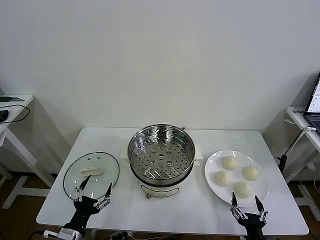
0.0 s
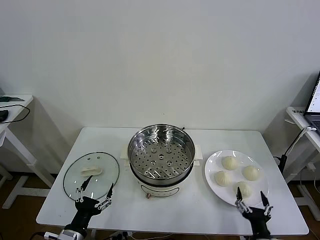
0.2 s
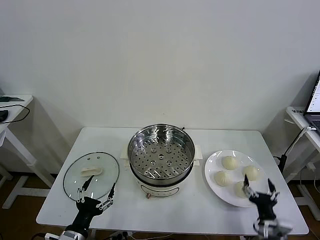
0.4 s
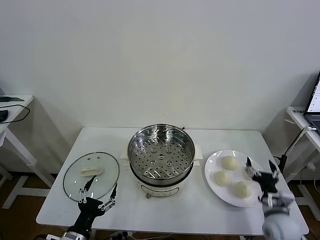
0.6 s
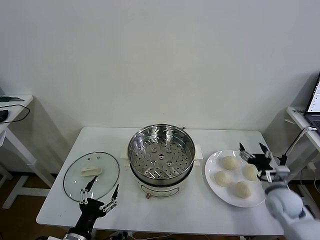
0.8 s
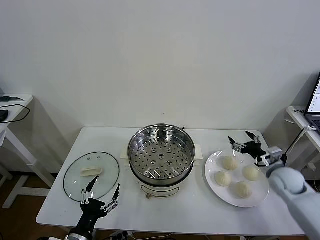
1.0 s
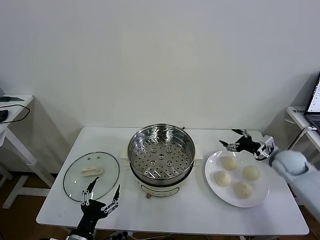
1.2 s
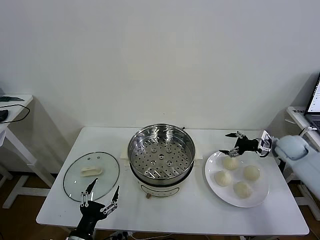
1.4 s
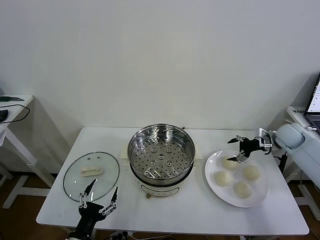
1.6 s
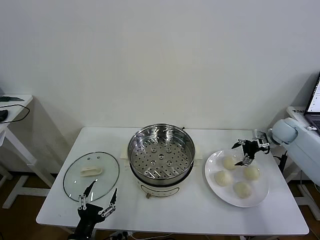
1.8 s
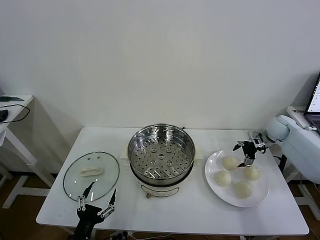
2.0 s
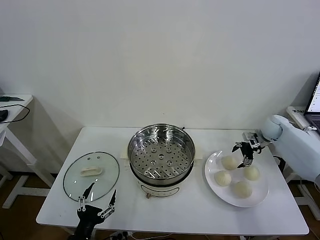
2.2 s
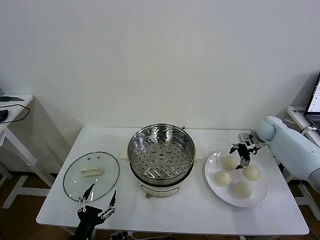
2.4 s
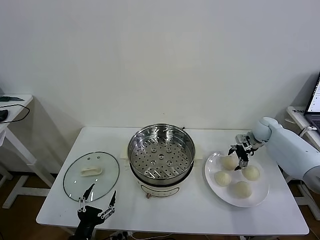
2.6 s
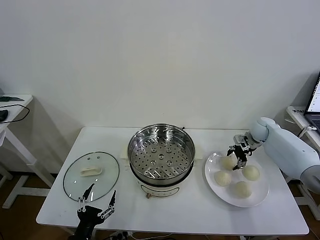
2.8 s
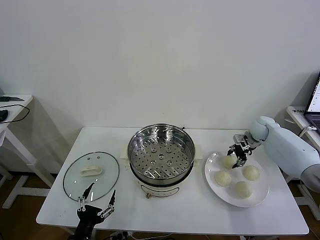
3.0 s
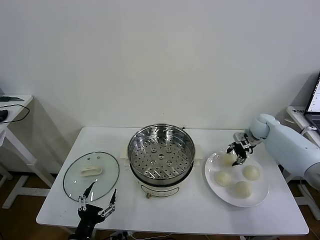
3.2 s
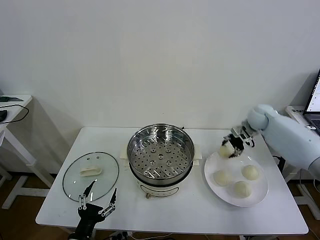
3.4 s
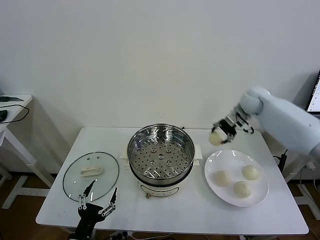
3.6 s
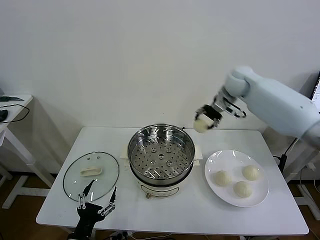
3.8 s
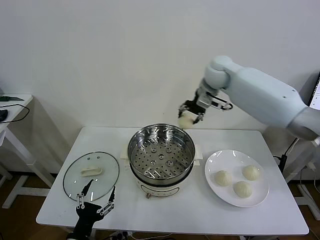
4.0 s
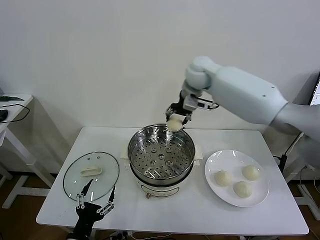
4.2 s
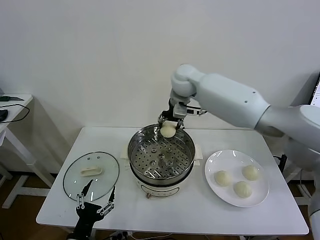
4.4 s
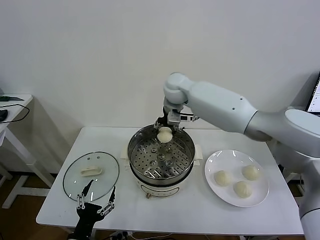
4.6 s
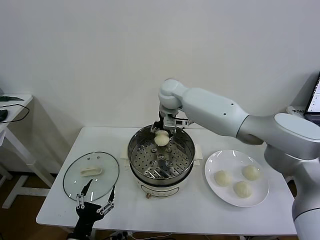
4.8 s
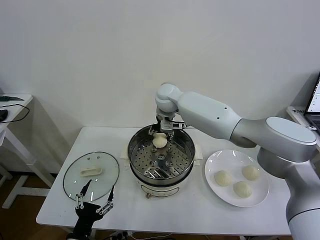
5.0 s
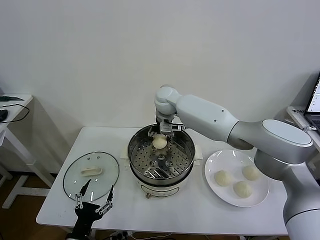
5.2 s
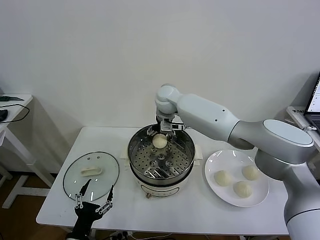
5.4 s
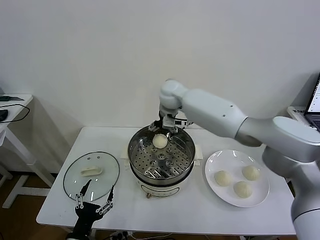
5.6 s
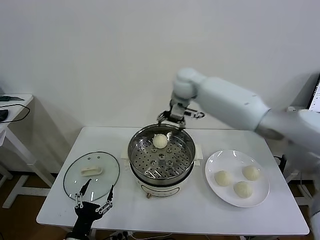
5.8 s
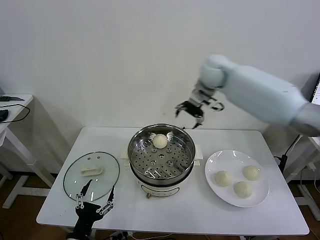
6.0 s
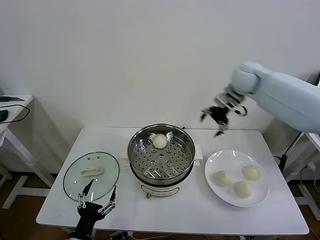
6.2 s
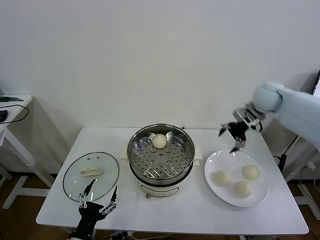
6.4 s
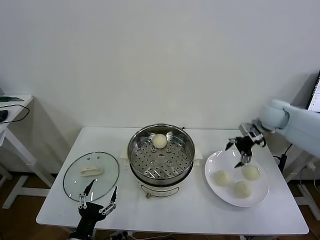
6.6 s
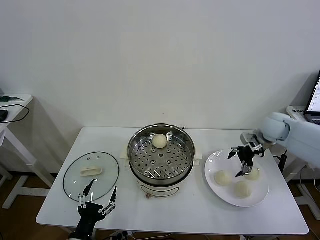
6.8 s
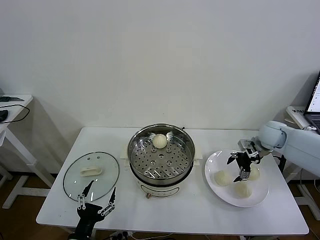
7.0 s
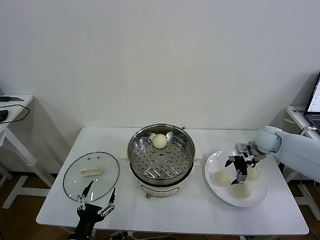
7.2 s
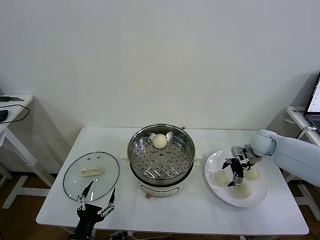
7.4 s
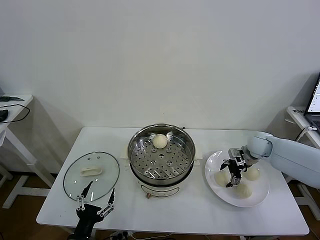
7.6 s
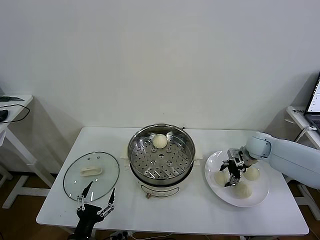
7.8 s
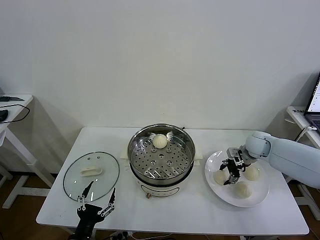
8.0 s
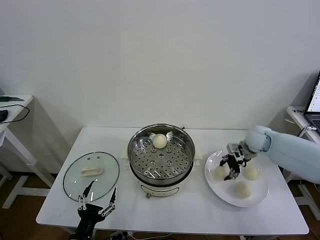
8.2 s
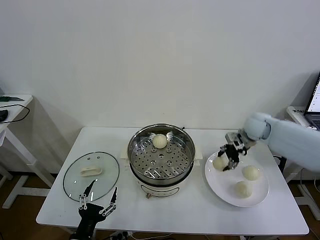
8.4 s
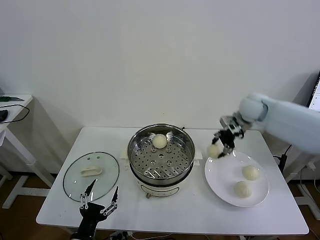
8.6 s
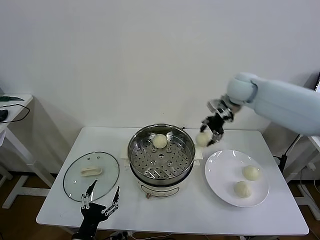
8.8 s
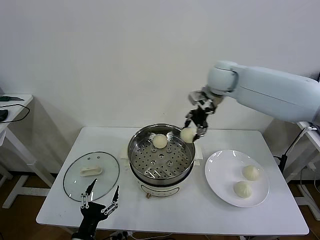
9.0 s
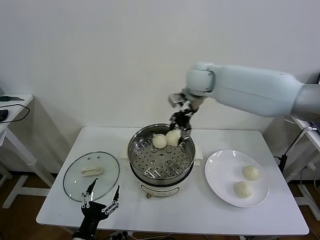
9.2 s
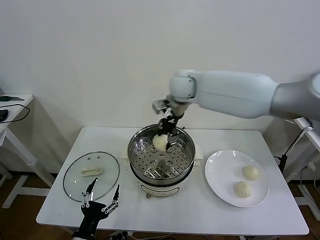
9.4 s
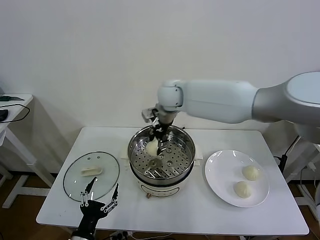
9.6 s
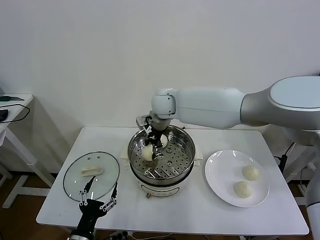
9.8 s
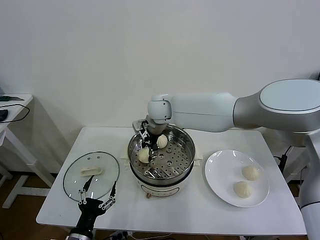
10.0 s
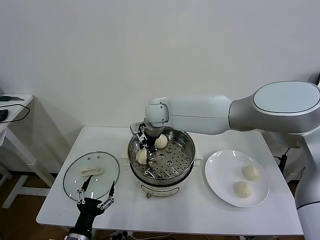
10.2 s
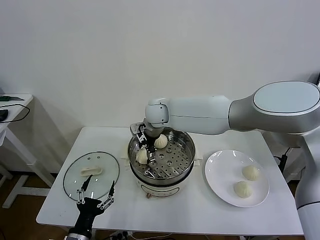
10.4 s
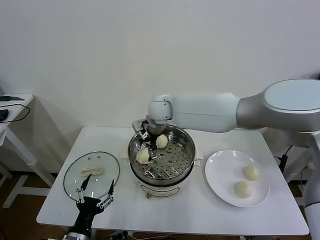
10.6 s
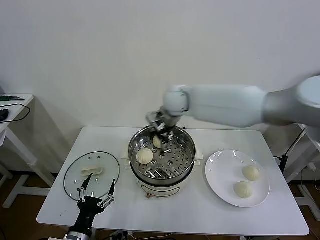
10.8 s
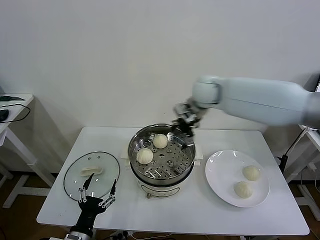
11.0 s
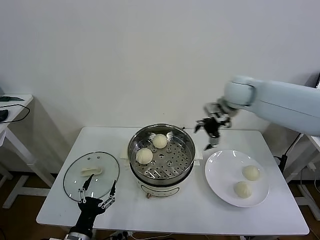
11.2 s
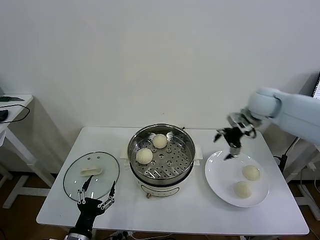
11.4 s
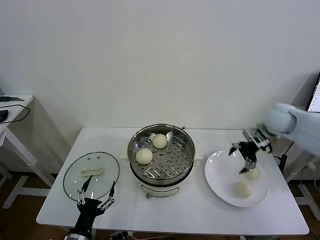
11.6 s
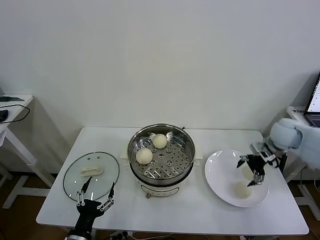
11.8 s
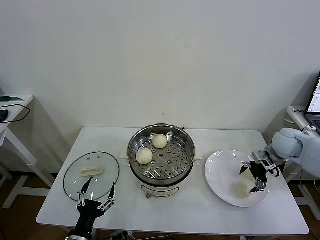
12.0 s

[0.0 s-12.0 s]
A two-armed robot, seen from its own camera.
Task of the whole recording: take steamed baozi put them in steamer then cover it.
Step, 0.0 to 3.0 s: Grasp the baozi in the plate with right gripper.
Step, 3.2 to 5.2 s: Place the baozi on the steamer with right gripper.
Step, 5.6 to 7.8 s: Grasp the baozi in the plate with right gripper.
Step, 8.0 to 10.4 s: Place the baozi on the steamer with right gripper.
1.6 to 3.0 s: The right gripper is displaced to the left and forward by approximately 10 cm, and closes its fingers.
3.0 to 4.4 s: The right gripper moves to the left and upward, about 40 cm.
4.4 to 6.0 s: The right gripper travels to the right by approximately 15 cm, and opens up.
6.0 to 7.6 s: The right gripper heads downward and to the right, covering about 30 cm.
7.6 to 9.0 s: The right gripper moves upward and to the left, about 35 cm, and closes its fingers.
9.0 to 10.4 s: The right gripper moves to the left and downward, approximately 20 cm, and opens its fingers.
10.4 to 12.0 s: The right gripper travels to the right by some 40 cm.

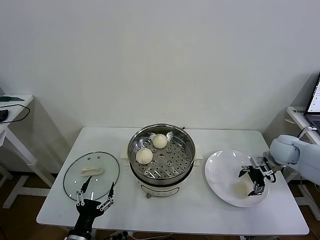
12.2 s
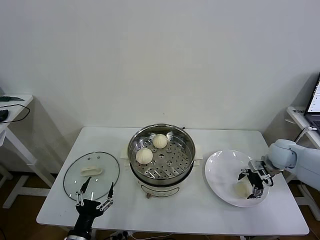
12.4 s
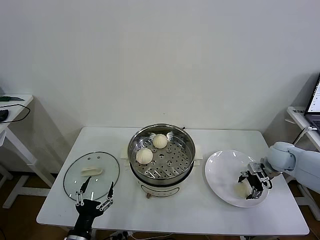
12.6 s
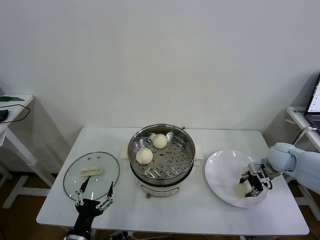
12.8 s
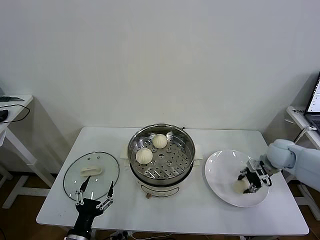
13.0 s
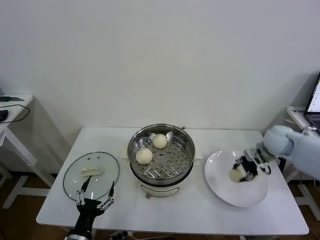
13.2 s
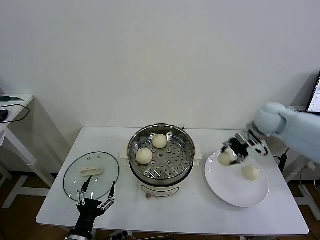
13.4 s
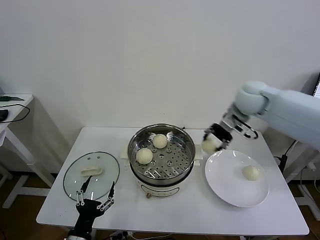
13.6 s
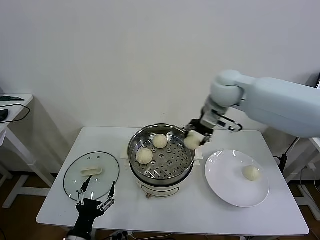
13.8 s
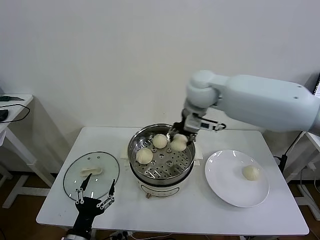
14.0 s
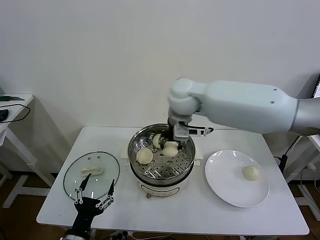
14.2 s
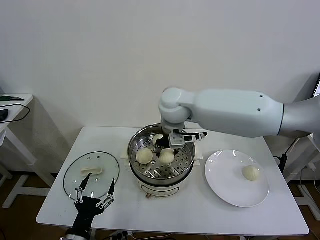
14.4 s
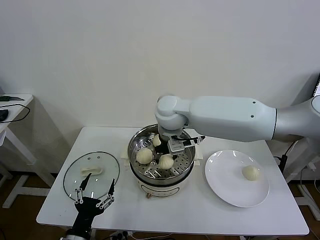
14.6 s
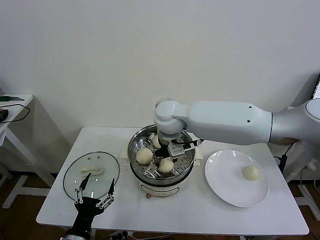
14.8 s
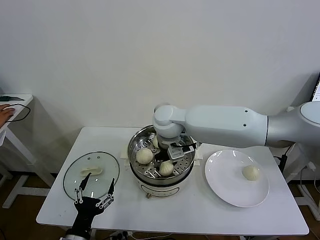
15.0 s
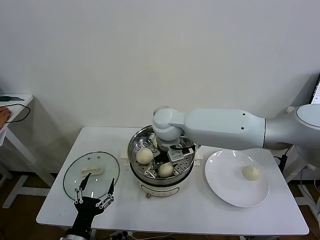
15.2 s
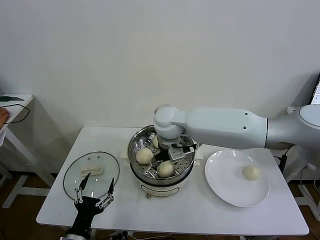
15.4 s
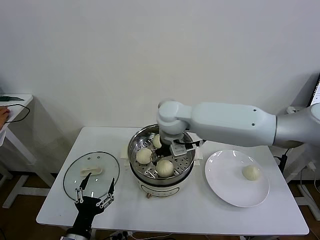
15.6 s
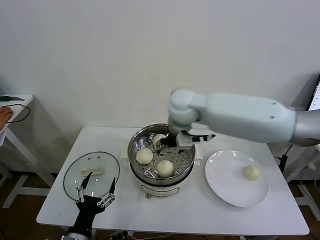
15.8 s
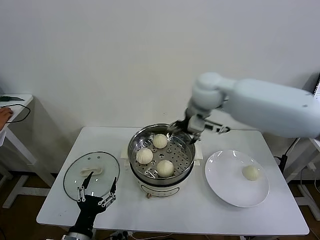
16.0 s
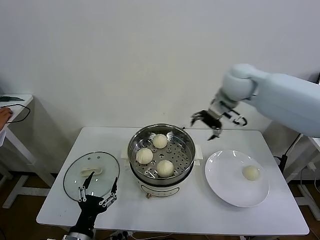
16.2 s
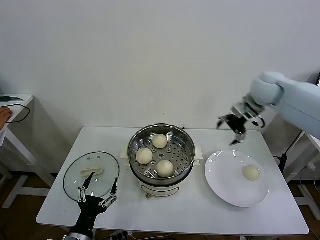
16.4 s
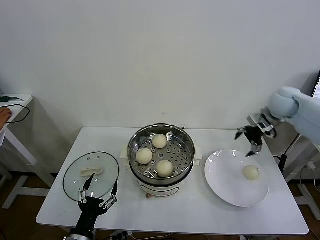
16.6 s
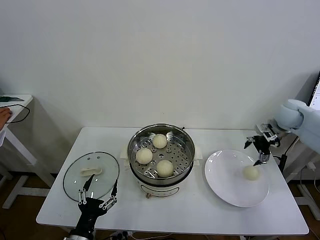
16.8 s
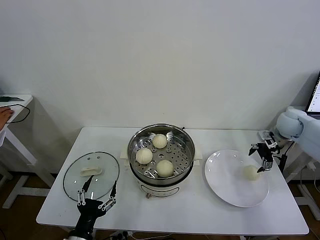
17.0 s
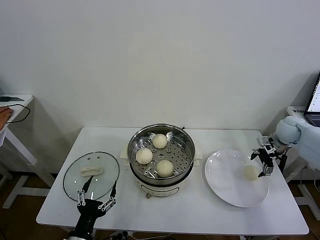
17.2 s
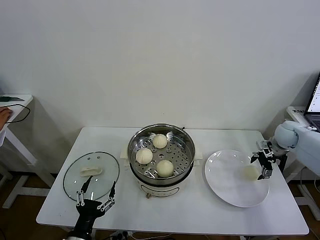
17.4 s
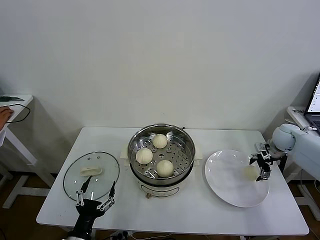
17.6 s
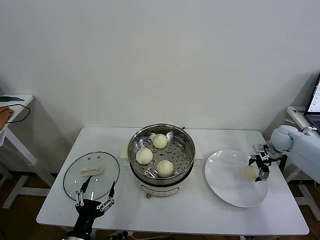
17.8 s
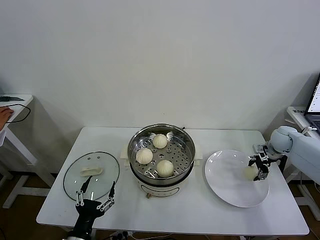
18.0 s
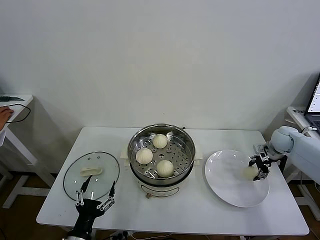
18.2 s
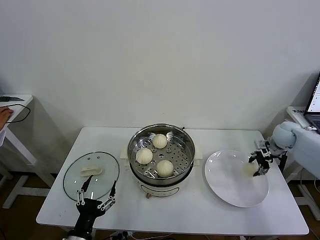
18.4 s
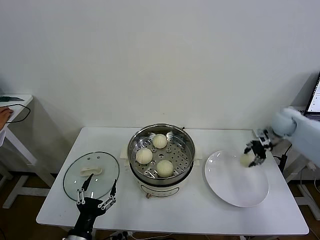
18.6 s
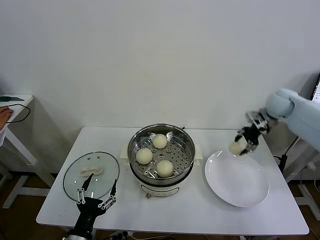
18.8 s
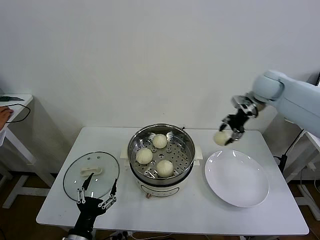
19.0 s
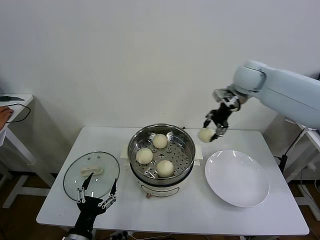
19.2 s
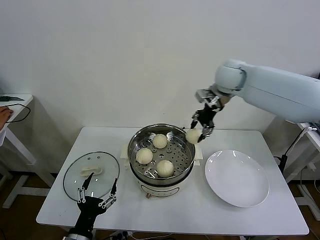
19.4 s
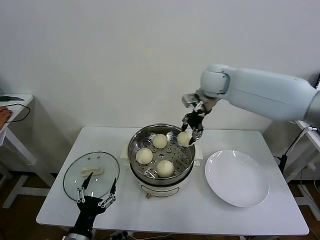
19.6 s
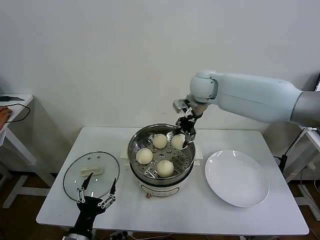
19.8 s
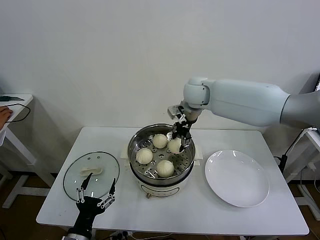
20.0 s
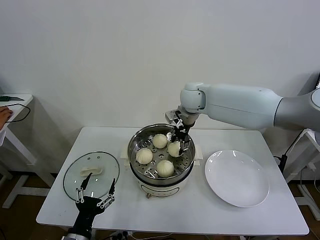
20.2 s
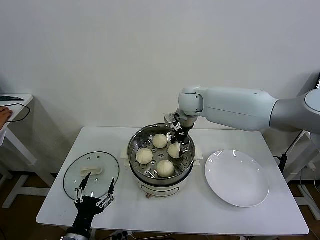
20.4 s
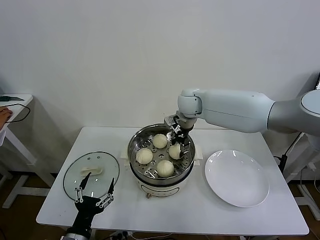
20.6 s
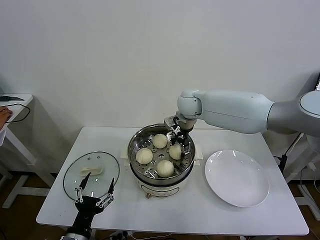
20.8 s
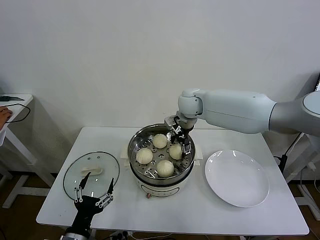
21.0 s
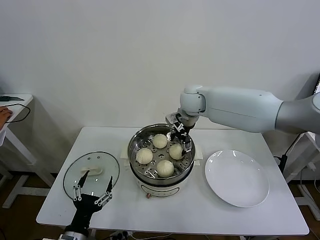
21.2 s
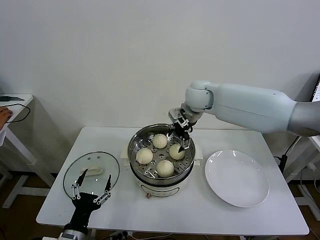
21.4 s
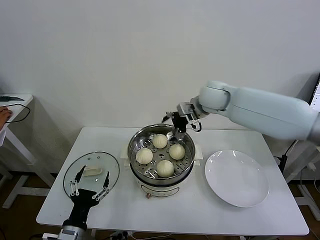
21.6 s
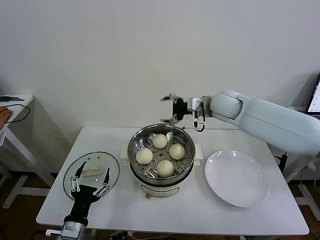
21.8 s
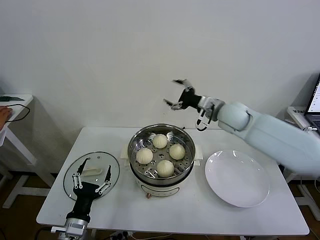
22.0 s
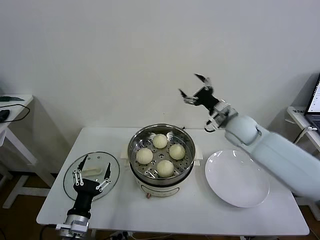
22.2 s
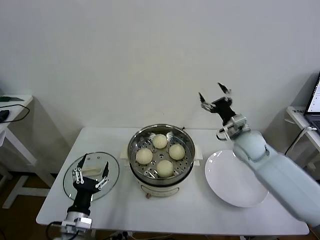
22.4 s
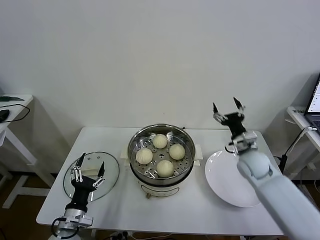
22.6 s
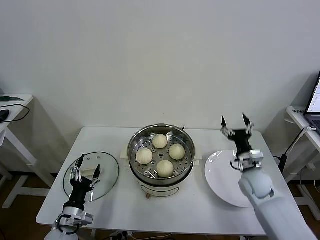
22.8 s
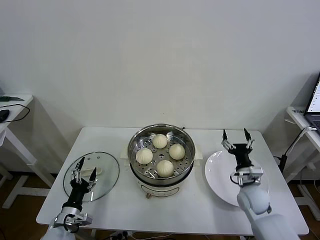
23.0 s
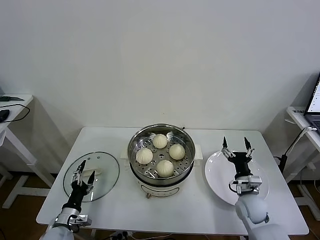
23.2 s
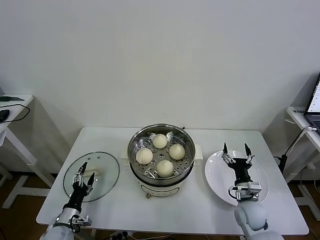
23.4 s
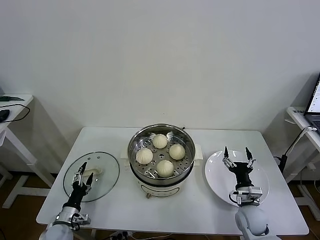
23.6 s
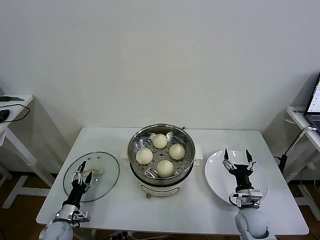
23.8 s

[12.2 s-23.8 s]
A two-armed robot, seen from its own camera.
Task of the whole recording: take steamed baozi put them in steamer then cover it.
Step, 13.0 to 15.4 s: Place the baozi on the steamer with right gripper.
Step, 15.6 to 18.2 s: Grasp the baozi in the plate with right gripper.
Step, 18.4 to 21.0 s: Place the baozi on the steamer with right gripper.
12.2 to 13.6 s: The right gripper moves upward and to the left, some 25 cm, and closes its fingers.
13.6 to 15.0 s: The right gripper shifts about 20 cm to the left.
15.0 to 16.6 s: The right gripper heads to the right, covering some 40 cm, and opens up.
16.6 to 18.0 s: The right gripper moves downward and to the right, roughly 15 cm, and closes up.
18.0 to 19.4 s: The right gripper travels to the left and upward by roughly 35 cm, and closes up.
19.4 to 21.0 s: The right gripper goes some 15 cm to the left and downward, and opens up.
21.0 to 22.4 s: The left gripper heads forward, covering approximately 5 cm. Meanwhile the right gripper is displaced to the right, backward and downward by about 25 cm.
22.4 to 23.8 s: The left gripper moves downward, to the left and forward, some 20 cm. Meanwhile the right gripper travels downward and backward by roughly 25 cm.
